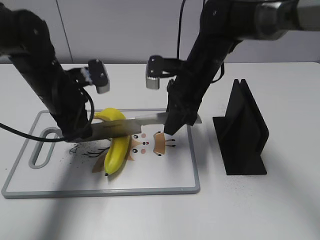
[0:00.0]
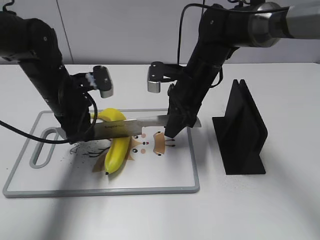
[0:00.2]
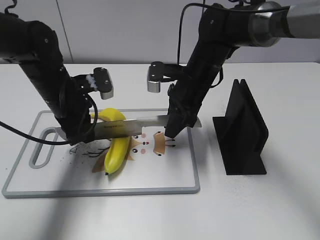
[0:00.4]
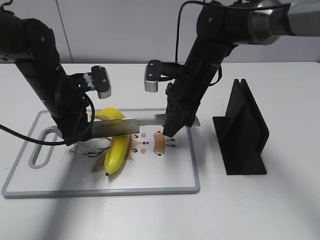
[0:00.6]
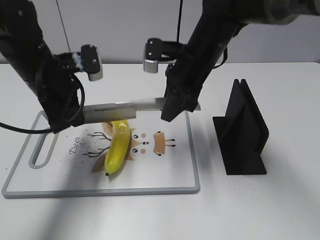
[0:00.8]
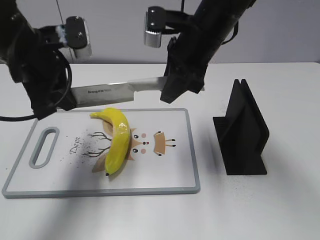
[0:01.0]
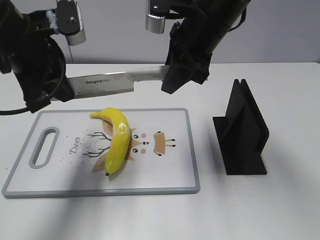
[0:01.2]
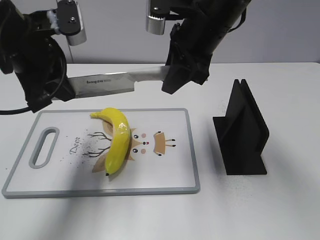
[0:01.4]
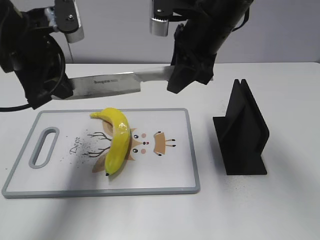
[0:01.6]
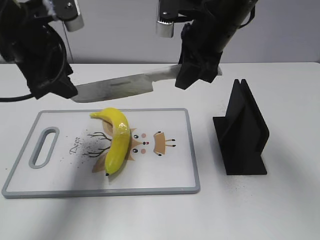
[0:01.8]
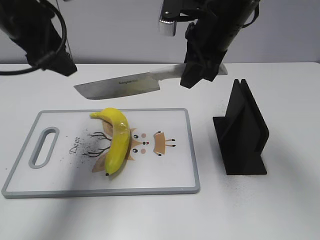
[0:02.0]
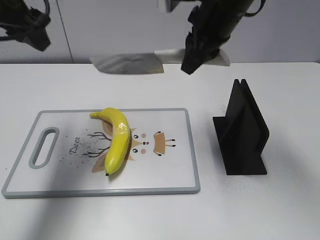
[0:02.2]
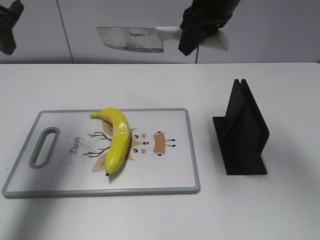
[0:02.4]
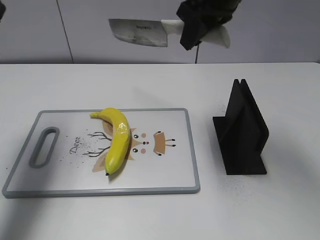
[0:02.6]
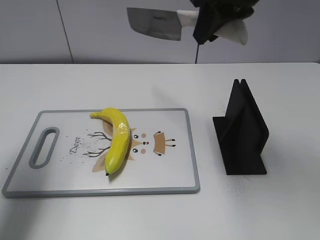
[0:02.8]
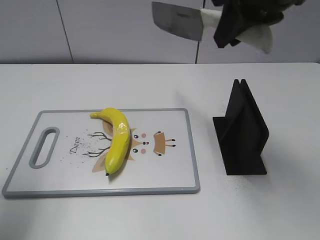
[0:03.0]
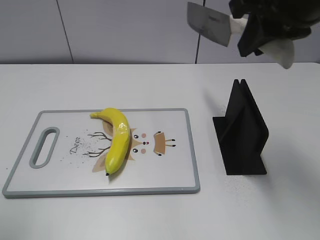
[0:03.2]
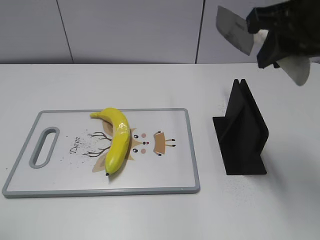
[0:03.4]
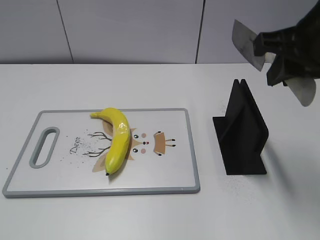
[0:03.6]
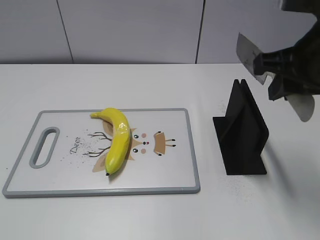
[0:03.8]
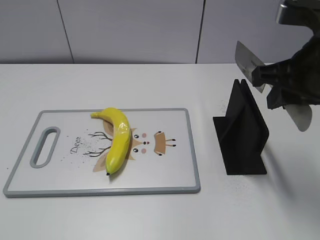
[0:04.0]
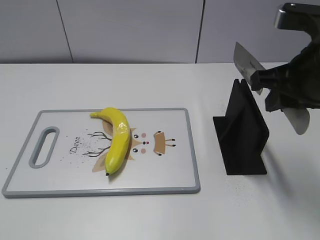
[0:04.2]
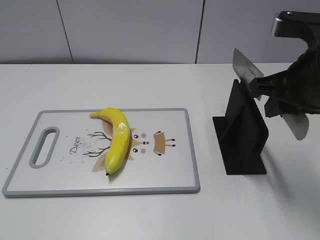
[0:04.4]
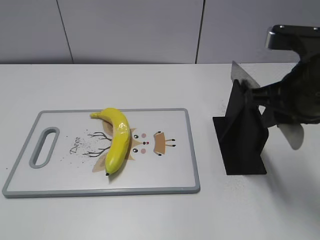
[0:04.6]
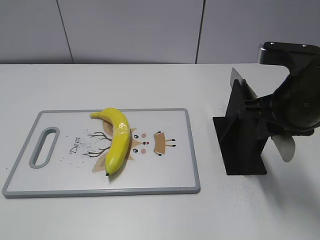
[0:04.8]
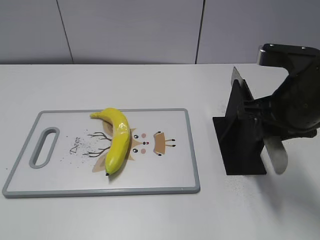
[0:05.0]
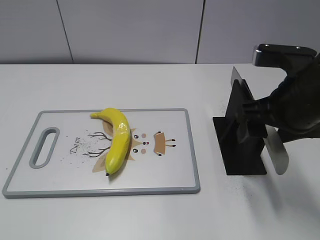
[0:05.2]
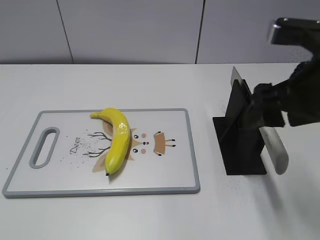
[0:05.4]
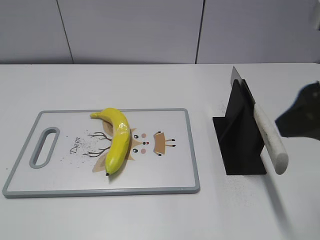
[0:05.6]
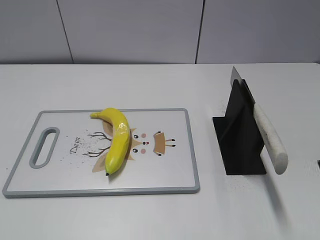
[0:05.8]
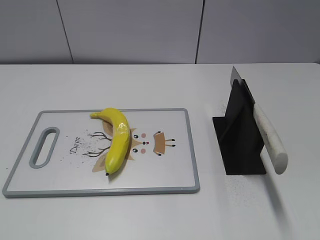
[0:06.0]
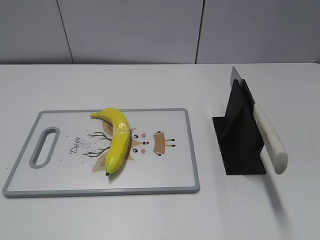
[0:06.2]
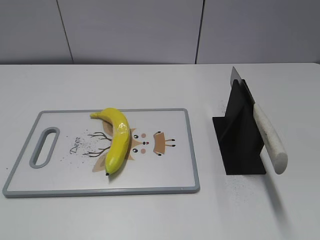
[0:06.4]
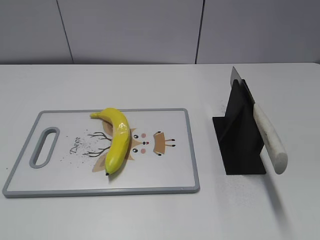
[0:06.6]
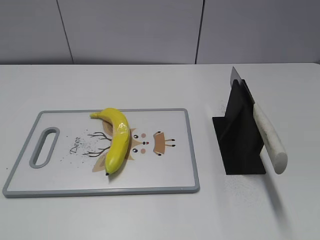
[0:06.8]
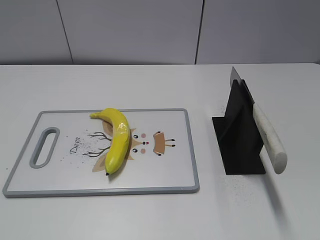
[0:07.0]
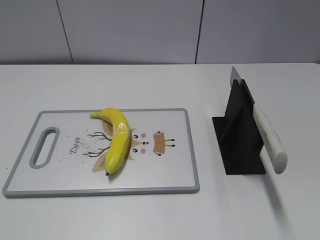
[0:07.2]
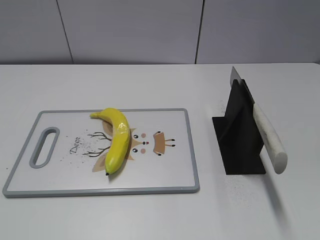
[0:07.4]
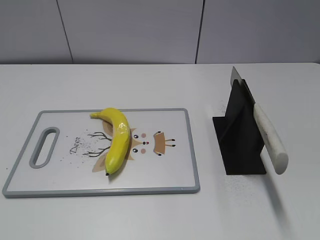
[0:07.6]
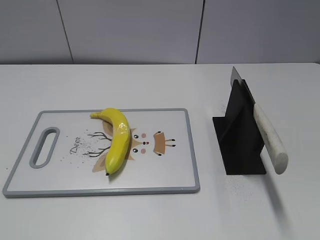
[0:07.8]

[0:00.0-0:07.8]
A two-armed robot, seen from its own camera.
Task of the whole recording: cut plastic banana.
Step, 0:01.6 to 0:02.2: Cut the banana with your right hand.
Step, 0:02.4 to 0:03.8: Lift the knife with your right hand.
Step, 0:04.0 to 0:07.8: Place the knife on the storage rack with your right hand.
0:00.0 to 0:01.6: Both grippers move upward, about 10 cm.
0:01.6 to 0:03.2: The left gripper is displaced backward, to the left and upward by some 20 cm, and opens up. Meanwhile the right gripper shifts roughly 15 cm upward, backward and to the right.
0:03.2 to 0:04.6: The right gripper moves downward, some 10 cm, while the left gripper goes about 15 cm backward and downward.
0:04.6 to 0:06.2: The right gripper heads backward and to the right, covering roughly 20 cm, and opens its fingers.
